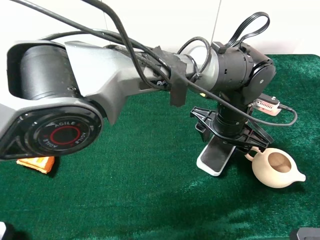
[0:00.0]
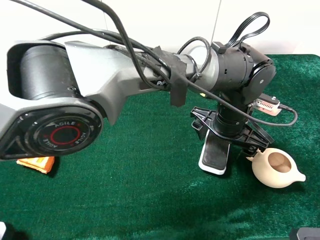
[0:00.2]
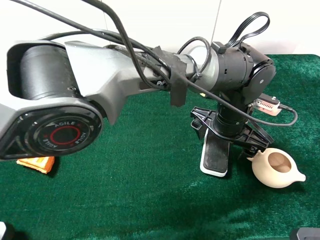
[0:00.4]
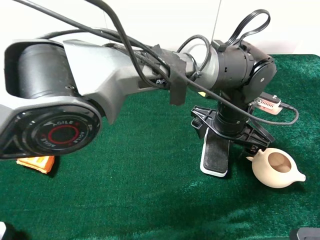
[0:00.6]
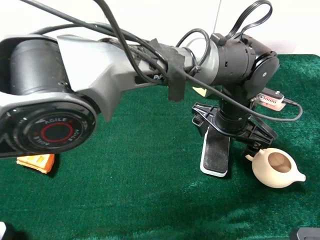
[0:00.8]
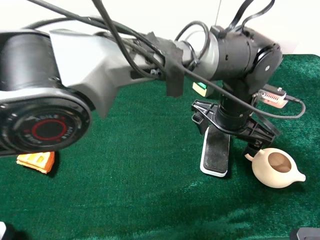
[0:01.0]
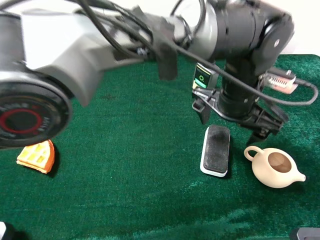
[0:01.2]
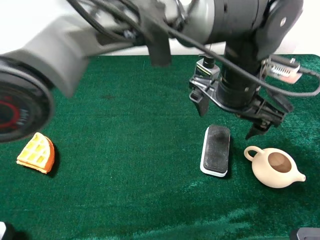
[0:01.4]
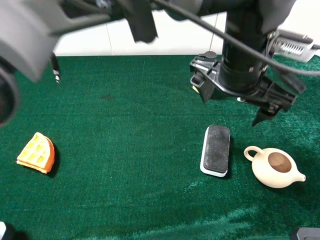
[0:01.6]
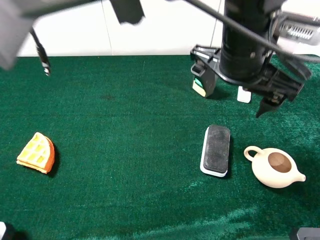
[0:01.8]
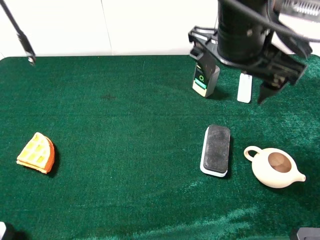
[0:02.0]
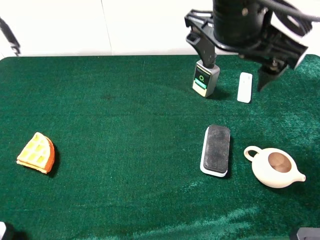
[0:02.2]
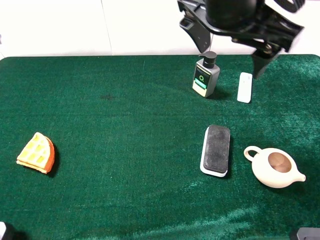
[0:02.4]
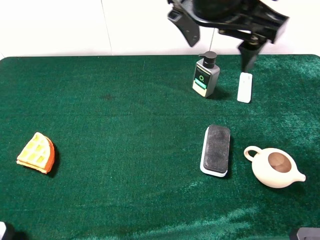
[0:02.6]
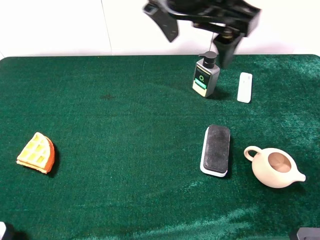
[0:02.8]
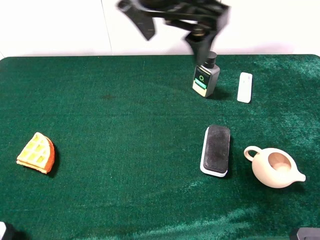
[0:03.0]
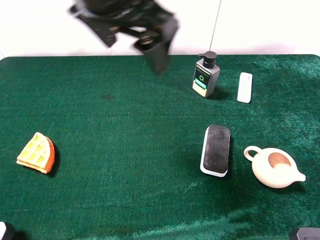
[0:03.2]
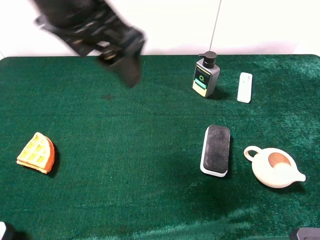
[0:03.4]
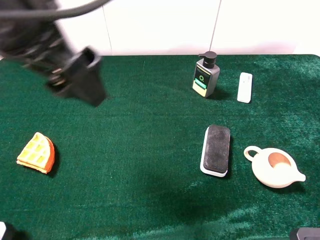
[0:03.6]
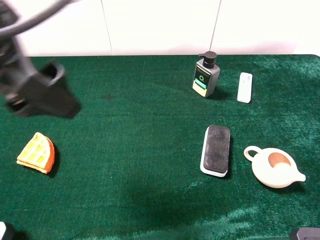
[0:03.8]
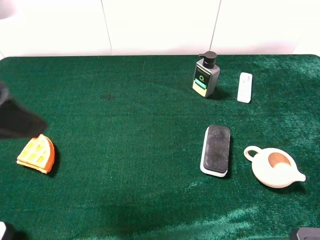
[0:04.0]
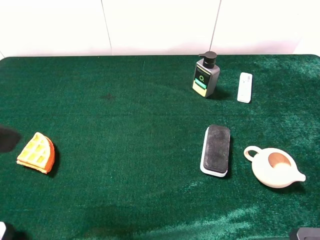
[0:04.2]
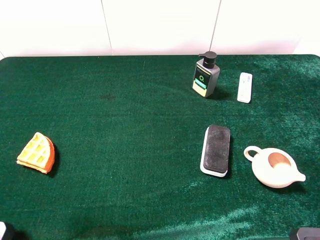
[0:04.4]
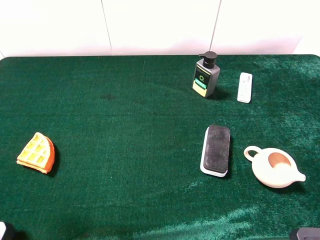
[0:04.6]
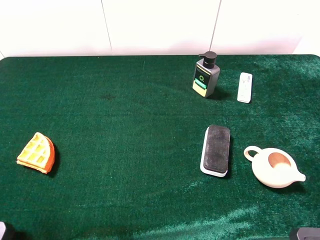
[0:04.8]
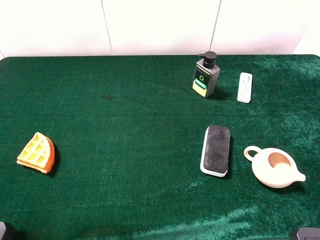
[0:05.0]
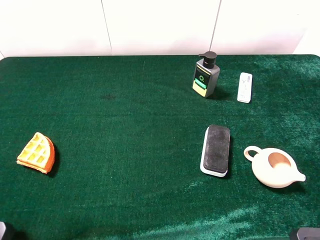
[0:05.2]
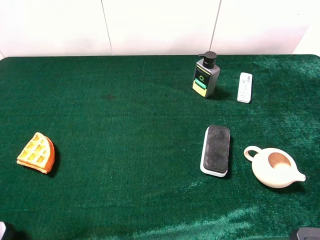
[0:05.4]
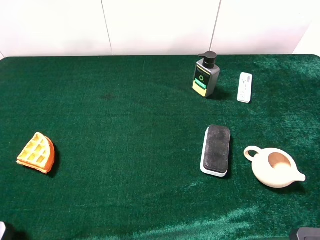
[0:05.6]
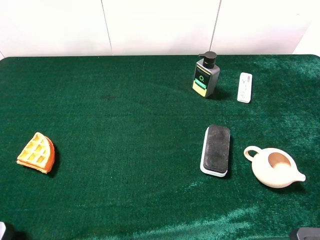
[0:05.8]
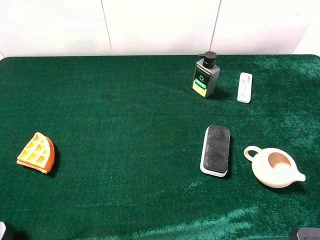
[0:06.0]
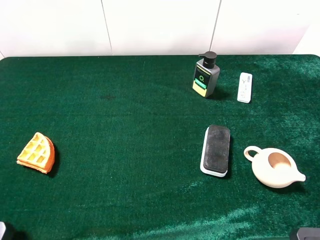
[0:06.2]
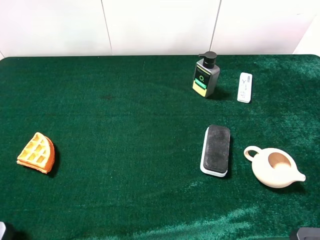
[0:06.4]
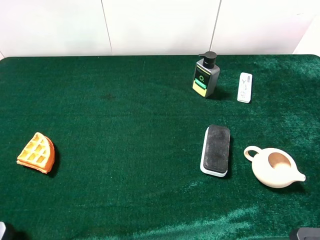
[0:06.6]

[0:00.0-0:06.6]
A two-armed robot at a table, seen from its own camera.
Task of the whole recording: the gripper move the object.
0:00.0 to 0:01.6: The left gripper is displaced upward by some 15 cm, and opens.
0:01.6 to 0:03.2: The left gripper heads to the left and upward, covering approximately 20 cm.
0:03.2 to 0:05.0: The left gripper goes about 30 cm to the left and backward.
